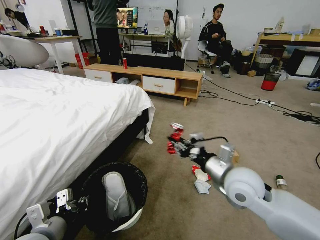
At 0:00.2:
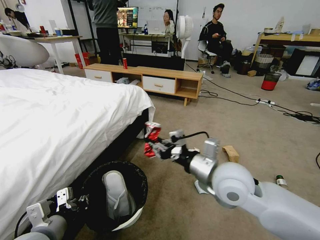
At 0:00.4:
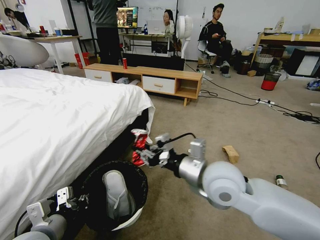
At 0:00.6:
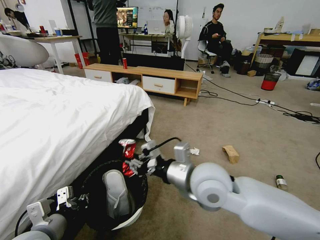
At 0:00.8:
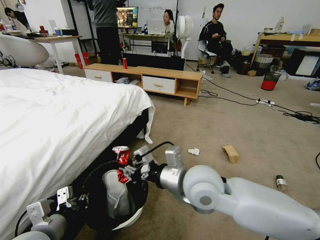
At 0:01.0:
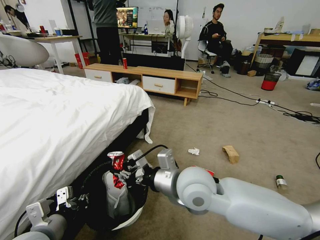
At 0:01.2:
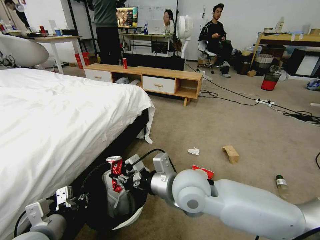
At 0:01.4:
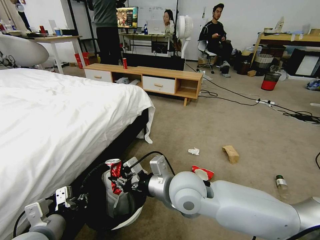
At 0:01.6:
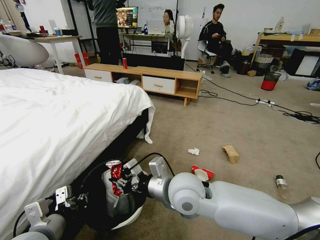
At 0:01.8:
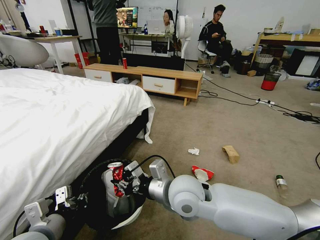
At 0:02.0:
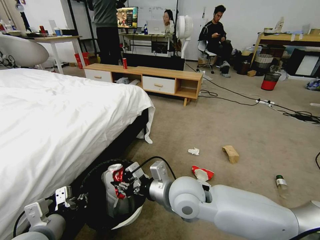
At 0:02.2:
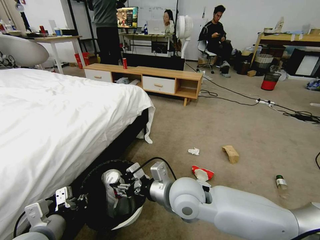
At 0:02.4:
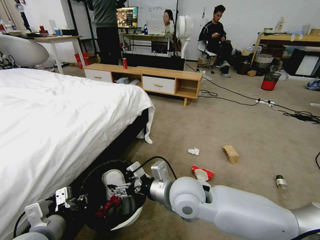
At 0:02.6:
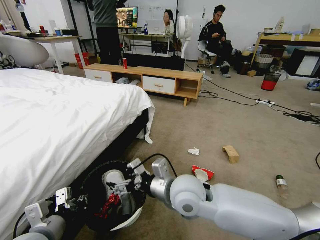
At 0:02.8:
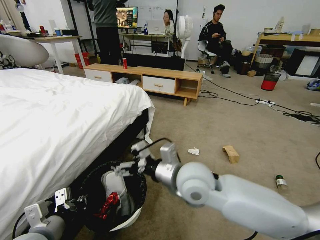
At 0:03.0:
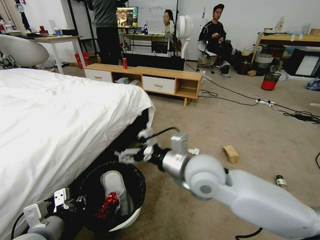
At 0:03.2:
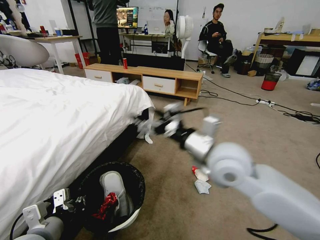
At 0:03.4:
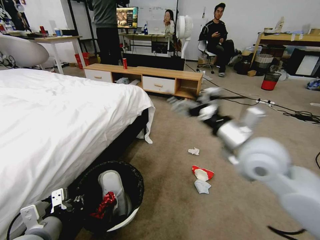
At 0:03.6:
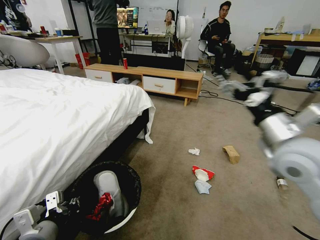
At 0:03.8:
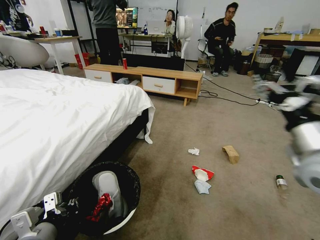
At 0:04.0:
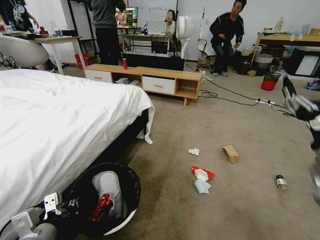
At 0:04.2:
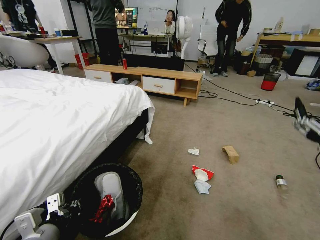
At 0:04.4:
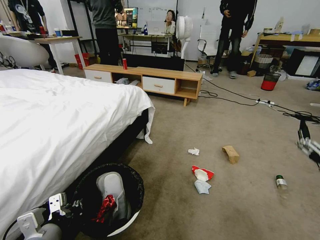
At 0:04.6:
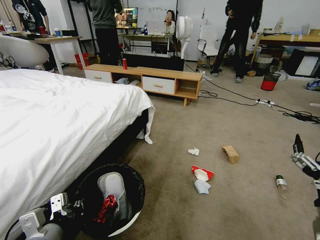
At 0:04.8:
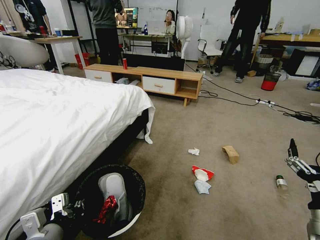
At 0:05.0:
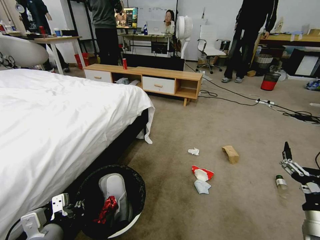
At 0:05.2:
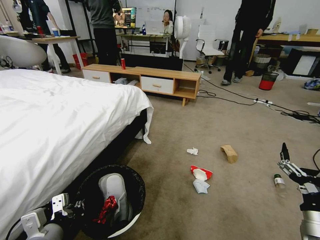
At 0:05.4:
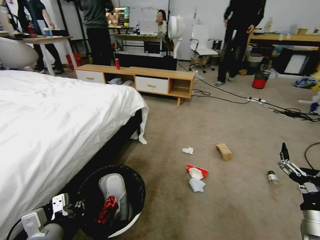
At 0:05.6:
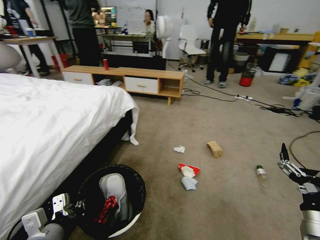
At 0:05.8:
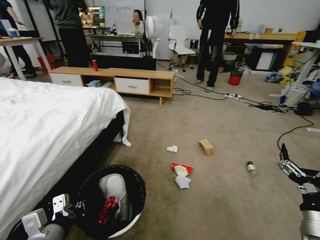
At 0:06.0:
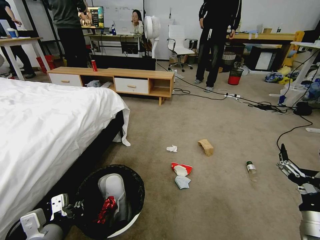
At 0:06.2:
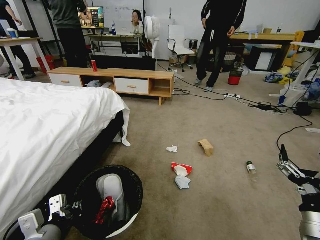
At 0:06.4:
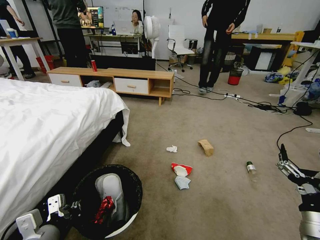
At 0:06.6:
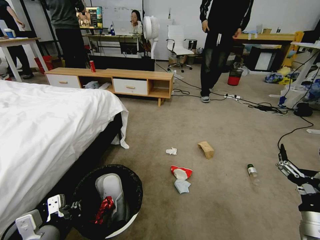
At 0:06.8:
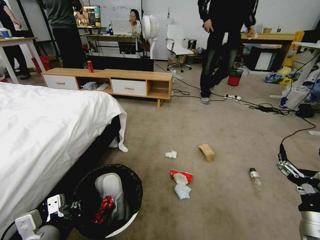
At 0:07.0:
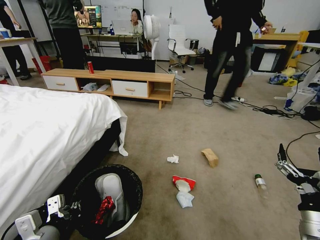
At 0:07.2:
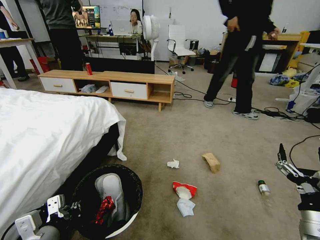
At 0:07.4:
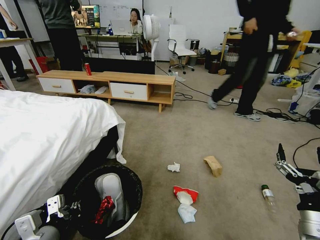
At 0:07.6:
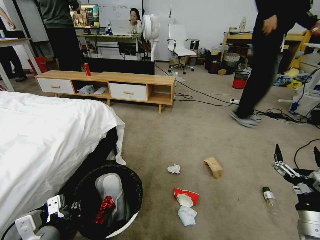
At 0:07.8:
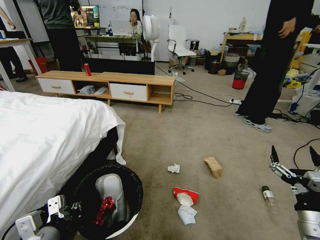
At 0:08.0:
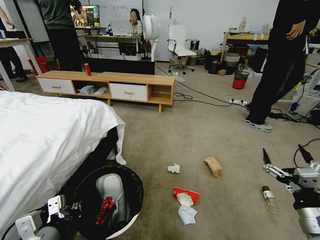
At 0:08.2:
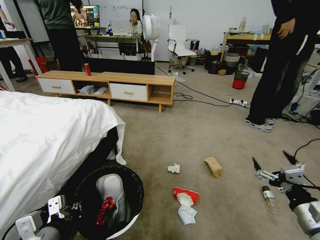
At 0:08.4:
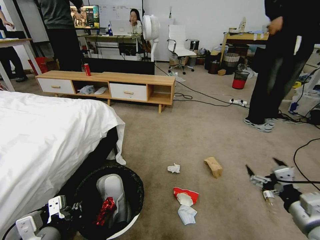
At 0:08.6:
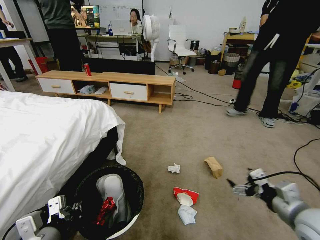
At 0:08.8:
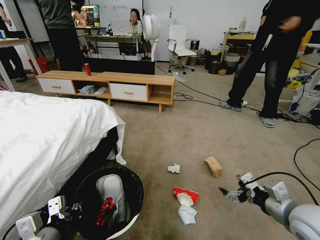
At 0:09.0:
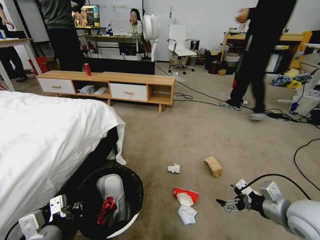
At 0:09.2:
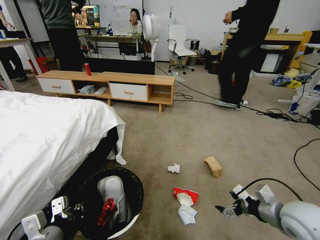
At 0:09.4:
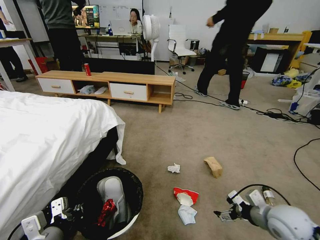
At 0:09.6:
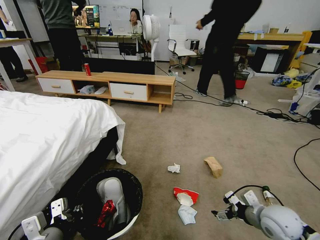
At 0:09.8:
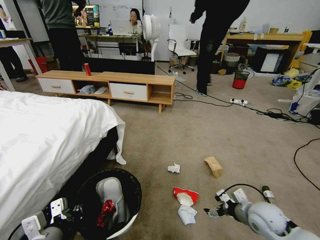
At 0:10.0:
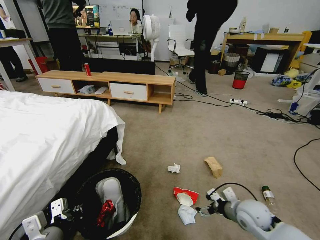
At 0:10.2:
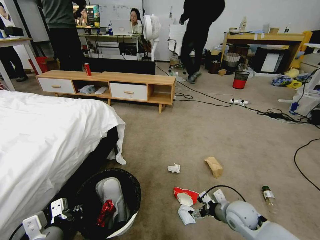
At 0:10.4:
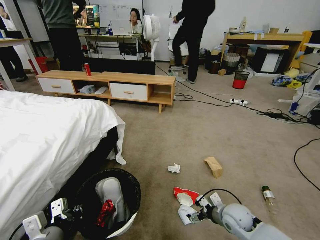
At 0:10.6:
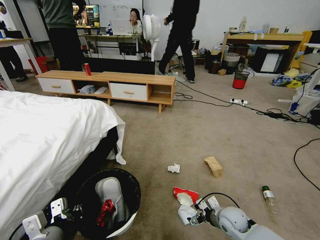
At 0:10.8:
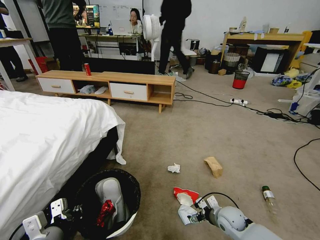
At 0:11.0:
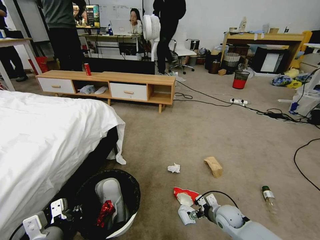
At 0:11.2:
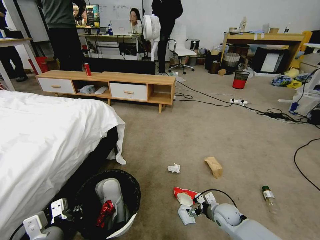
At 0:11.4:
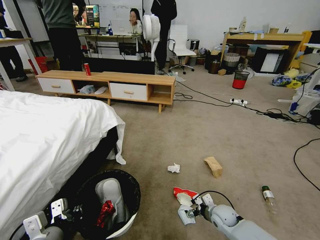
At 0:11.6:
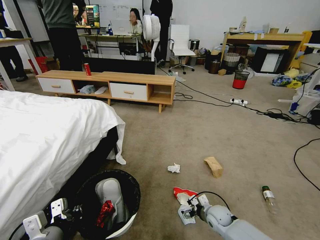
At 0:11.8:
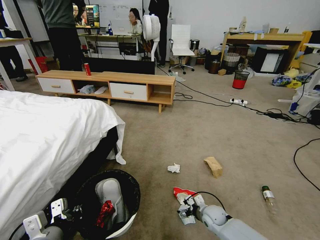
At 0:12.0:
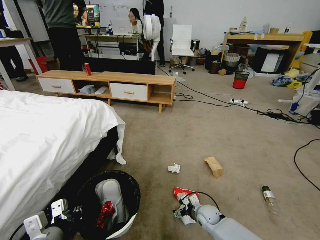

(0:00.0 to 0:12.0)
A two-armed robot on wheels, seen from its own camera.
Task of the whole recording: Pick up the trash bin and place the garbage on the floor into it.
0:00.0 - 0:01.6: The right gripper travels to the left by roughly 15 cm.
0:01.6 - 0:03.0: The right gripper moves upward, roughly 5 cm, and opens up.
0:03.0 - 0:04.4: The right gripper travels to the right and backward by roughly 30 cm.
0:04.4 - 0:06.0: The right gripper travels downward by some 5 cm.
0:07.6 - 0:09.0: The right gripper goes some 5 cm forward.
0:09.0 - 0:10.4: The right gripper is displaced downward, to the left and forward by approximately 20 cm.
0:10.4 - 0:12.0: The right gripper is displaced downward and to the left by some 15 cm.

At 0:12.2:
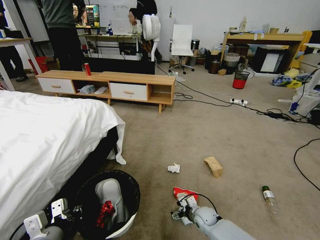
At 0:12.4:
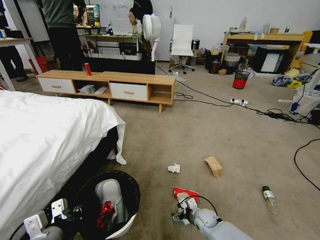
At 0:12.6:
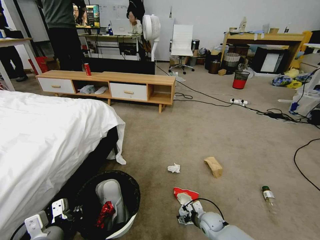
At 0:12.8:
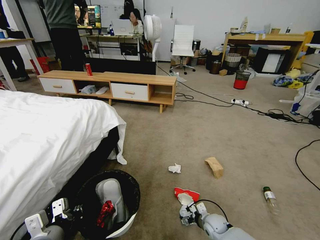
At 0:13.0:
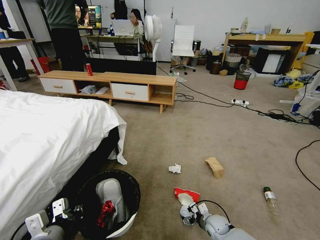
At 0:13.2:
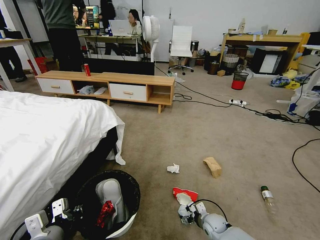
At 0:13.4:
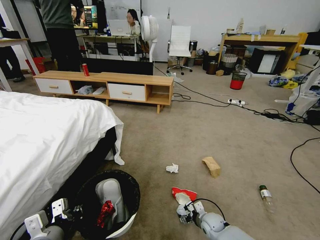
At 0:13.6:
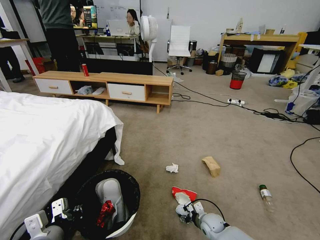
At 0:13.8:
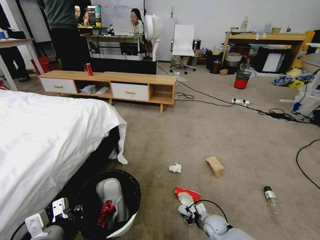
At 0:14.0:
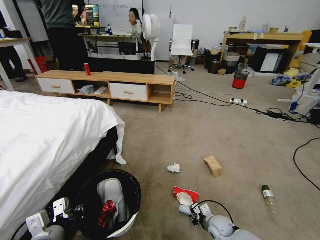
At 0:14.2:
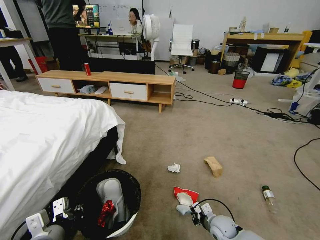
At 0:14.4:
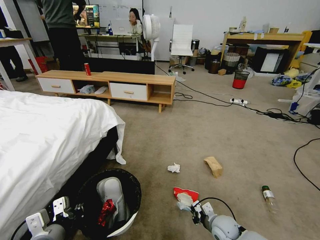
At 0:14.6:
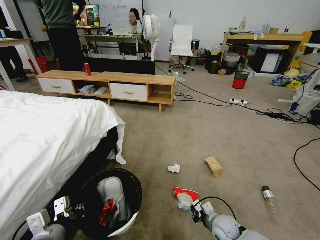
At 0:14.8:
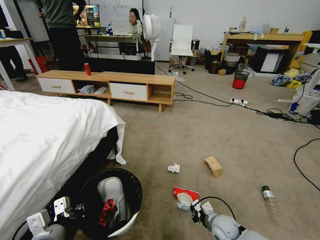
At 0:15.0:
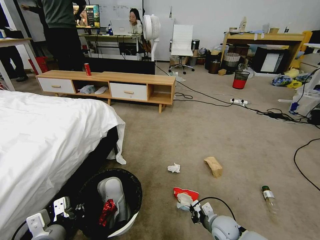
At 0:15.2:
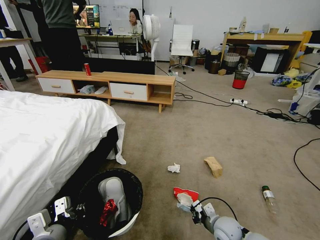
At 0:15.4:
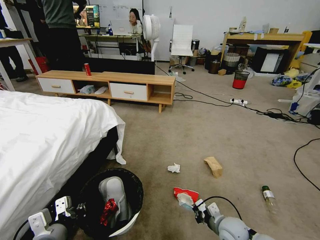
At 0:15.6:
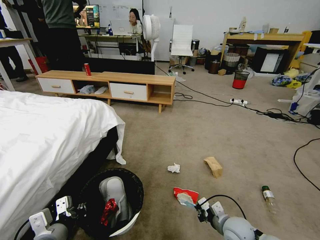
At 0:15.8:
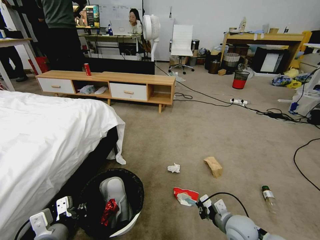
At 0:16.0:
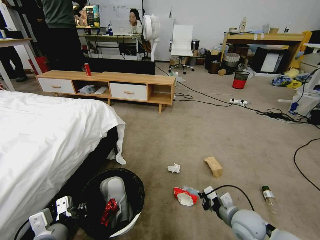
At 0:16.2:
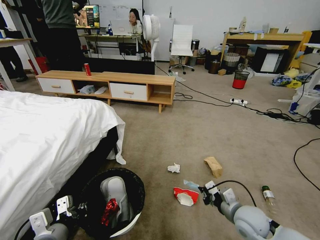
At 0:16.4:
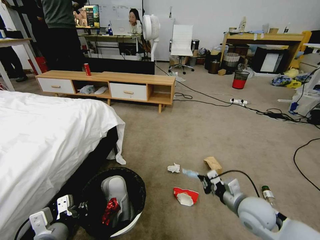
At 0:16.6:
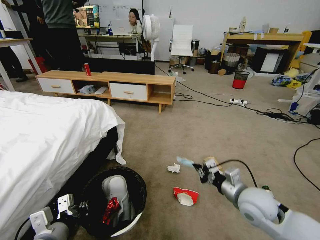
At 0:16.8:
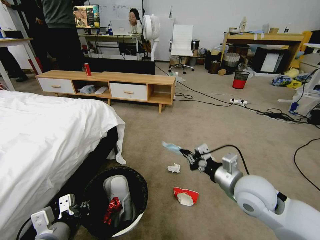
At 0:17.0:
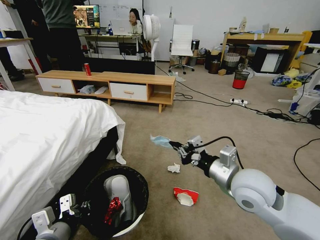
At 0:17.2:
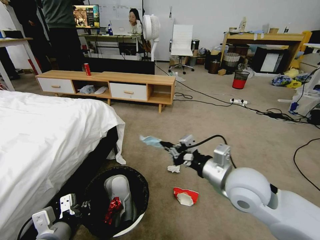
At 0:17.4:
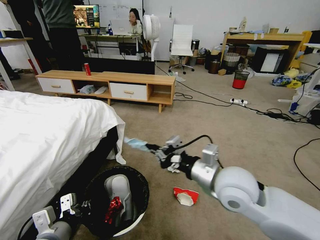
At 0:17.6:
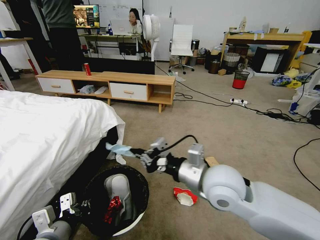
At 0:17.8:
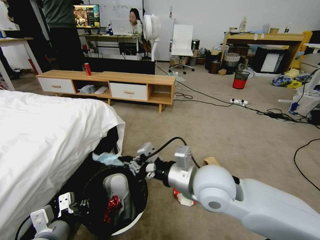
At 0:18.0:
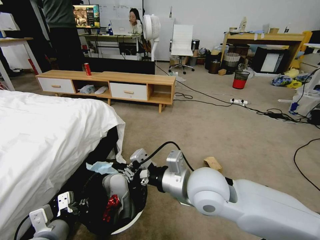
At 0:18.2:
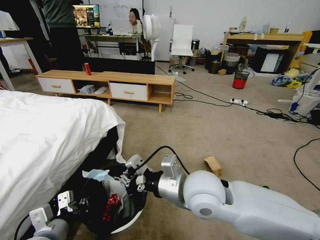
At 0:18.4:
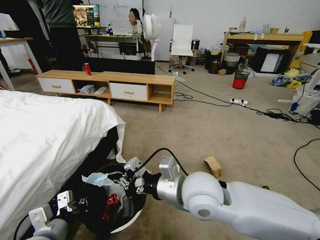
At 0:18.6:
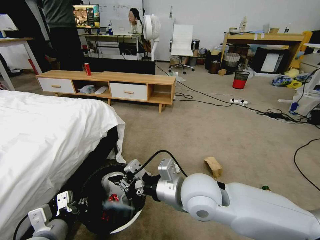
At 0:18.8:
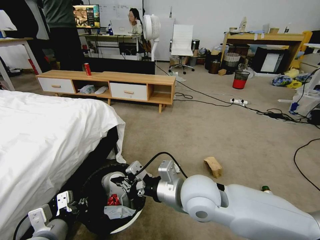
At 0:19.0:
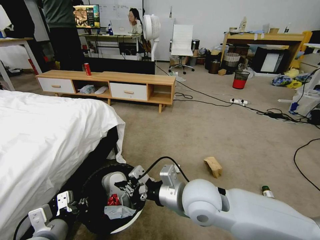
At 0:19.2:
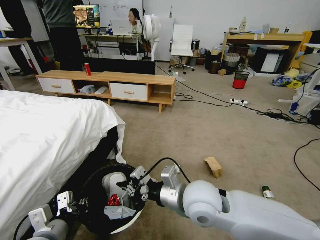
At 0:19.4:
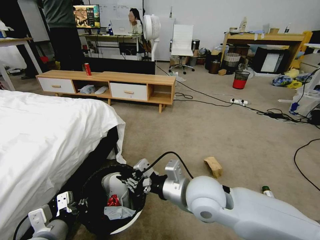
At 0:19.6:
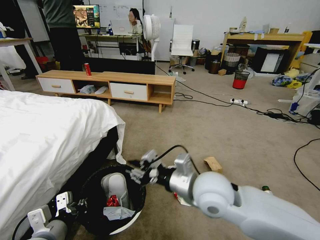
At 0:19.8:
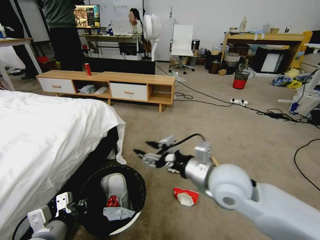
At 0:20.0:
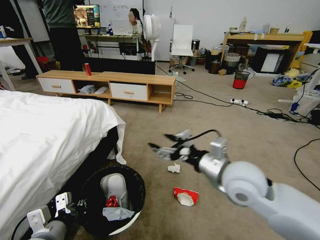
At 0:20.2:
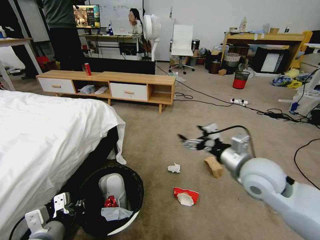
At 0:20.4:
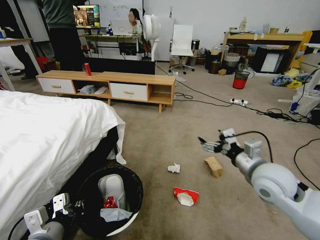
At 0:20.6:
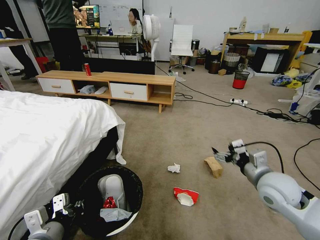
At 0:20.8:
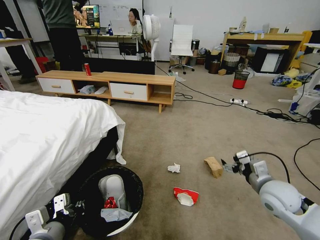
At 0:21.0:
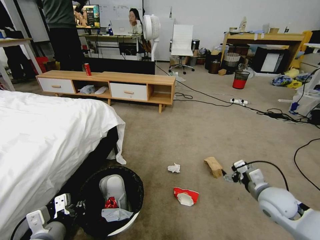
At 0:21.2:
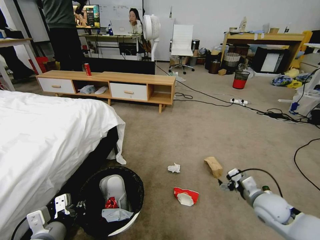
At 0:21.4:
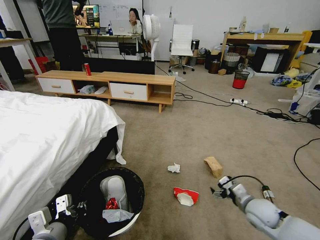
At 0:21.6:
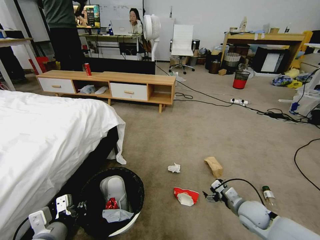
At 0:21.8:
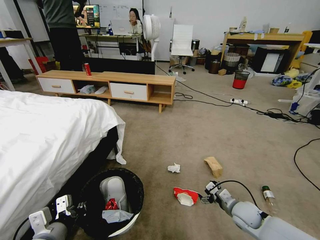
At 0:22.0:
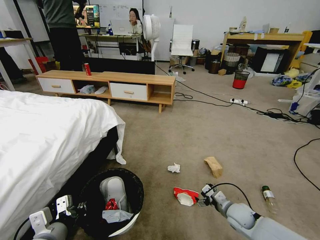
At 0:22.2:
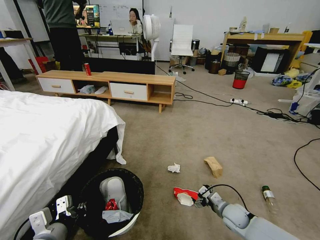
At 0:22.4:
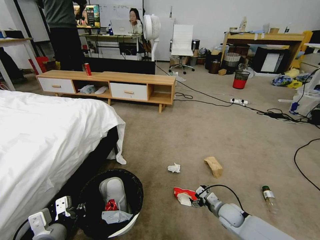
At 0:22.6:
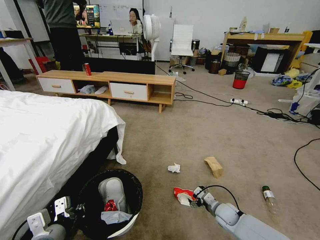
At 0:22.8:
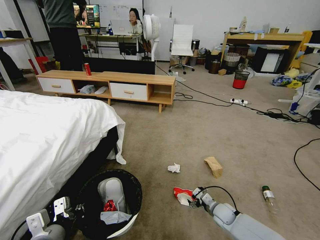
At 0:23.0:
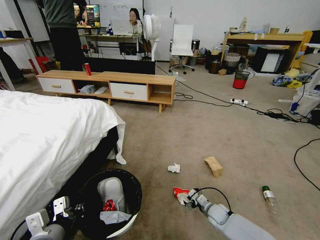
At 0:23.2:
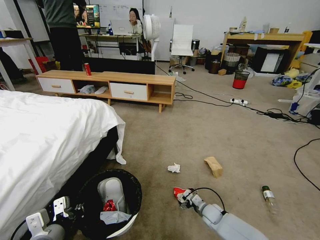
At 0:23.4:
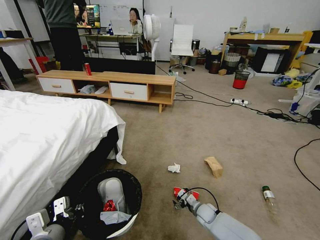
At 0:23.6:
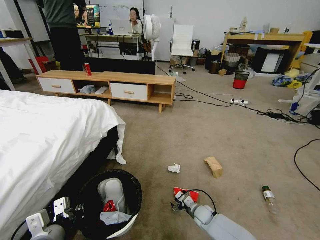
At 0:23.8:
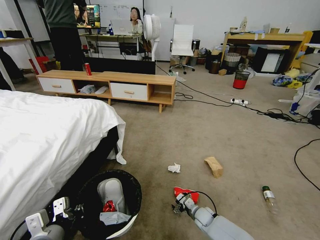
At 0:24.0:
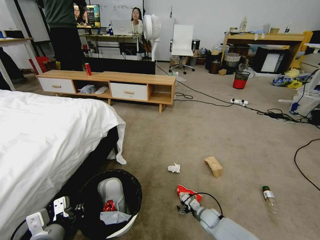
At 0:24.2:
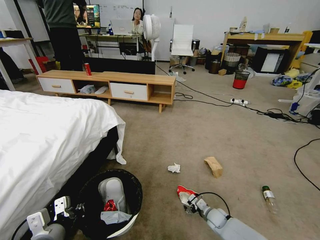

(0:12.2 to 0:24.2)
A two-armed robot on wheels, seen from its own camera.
Task of the whole recording: Pick up the trash bin and place the garbage on the floor into it.
0:12.2 - 0:13.8: The right gripper closes up.
0:13.8 - 0:15.2: The right gripper heads upward, covering some 10 cm, and closes.
0:15.2 - 0:16.6: The right gripper shifts roughly 20 cm upward.
0:16.6 - 0:18.2: The right gripper is displaced to the left and upward by some 20 cm.
0:18.2 - 0:19.8: The right gripper travels to the right by about 5 cm, and opens its fingers.
0:19.8 - 0:21.2: The right gripper moves to the right and downward, some 30 cm, and opens.
0:21.2 - 0:22.6: The right gripper goes approximately 20 cm downward and to the left.
0:22.6 - 0:24.2: The right gripper travels downward by approximately 5 cm, and moves approximately 10 cm to the left and comes back.
